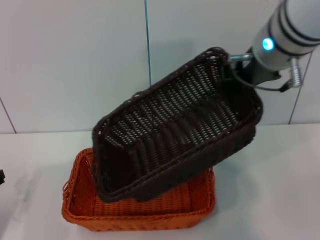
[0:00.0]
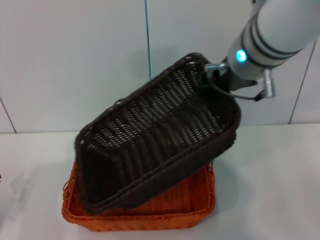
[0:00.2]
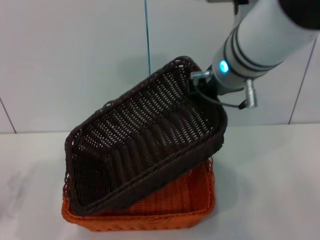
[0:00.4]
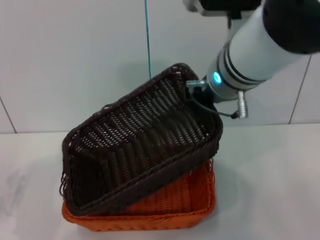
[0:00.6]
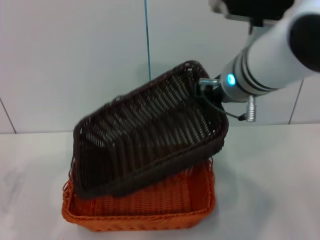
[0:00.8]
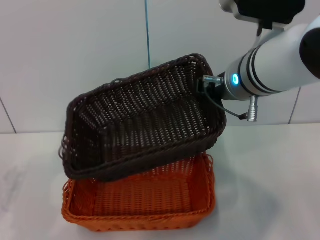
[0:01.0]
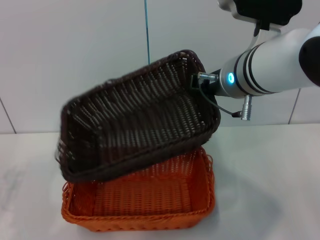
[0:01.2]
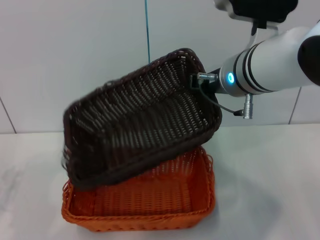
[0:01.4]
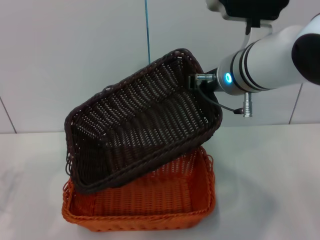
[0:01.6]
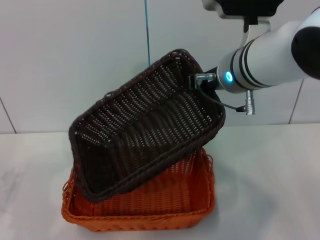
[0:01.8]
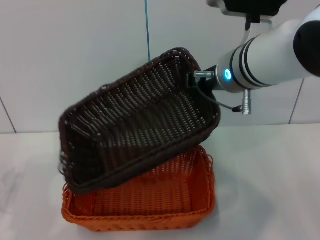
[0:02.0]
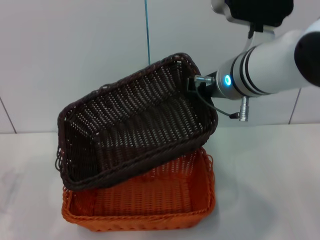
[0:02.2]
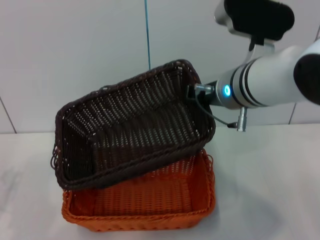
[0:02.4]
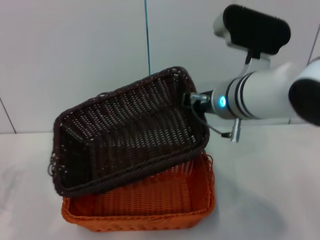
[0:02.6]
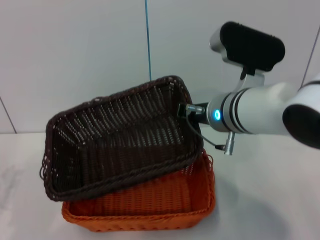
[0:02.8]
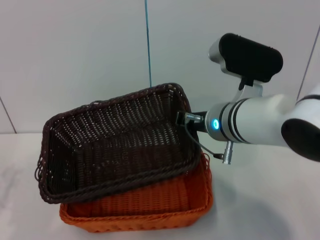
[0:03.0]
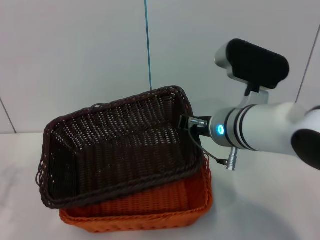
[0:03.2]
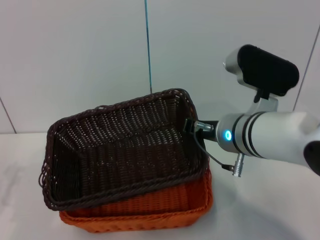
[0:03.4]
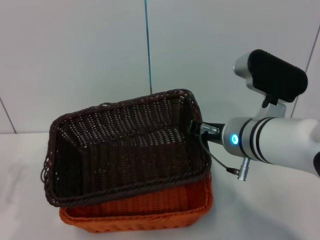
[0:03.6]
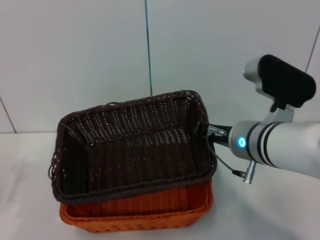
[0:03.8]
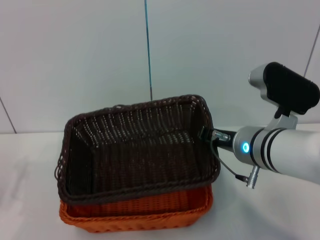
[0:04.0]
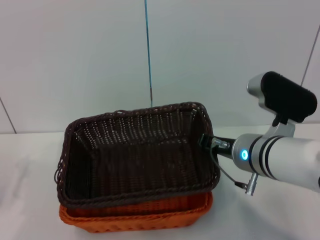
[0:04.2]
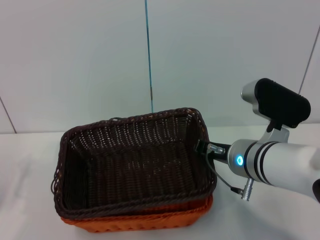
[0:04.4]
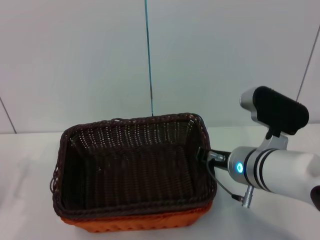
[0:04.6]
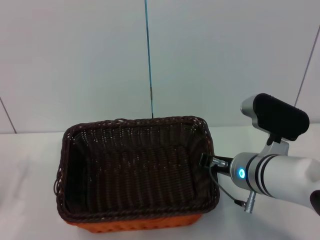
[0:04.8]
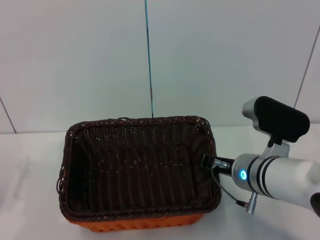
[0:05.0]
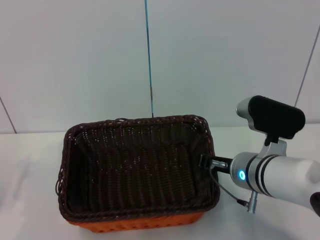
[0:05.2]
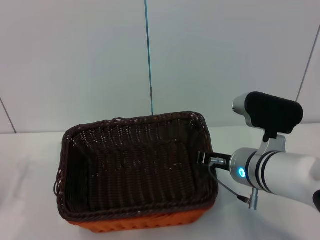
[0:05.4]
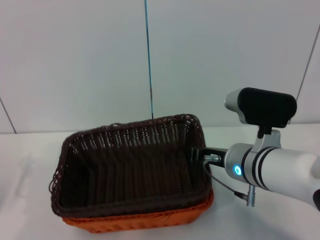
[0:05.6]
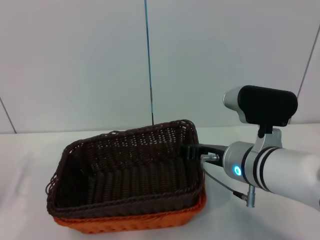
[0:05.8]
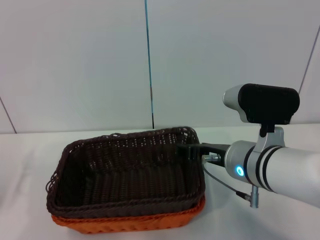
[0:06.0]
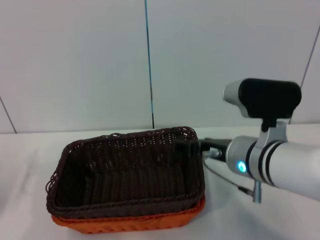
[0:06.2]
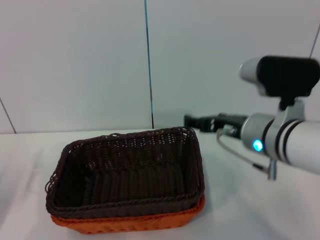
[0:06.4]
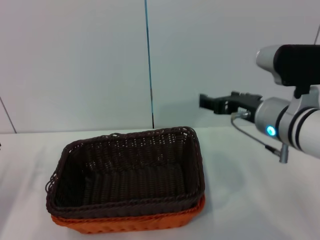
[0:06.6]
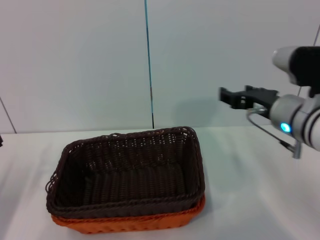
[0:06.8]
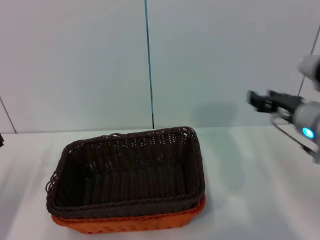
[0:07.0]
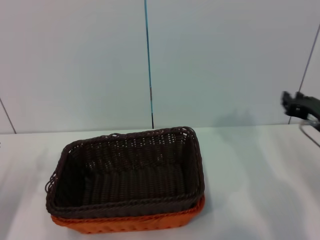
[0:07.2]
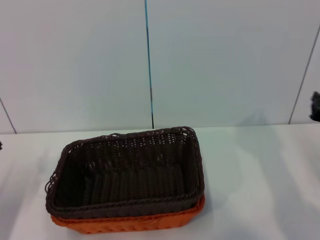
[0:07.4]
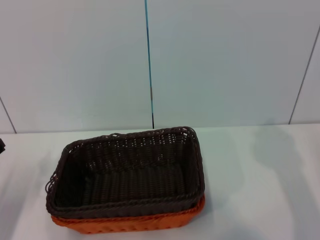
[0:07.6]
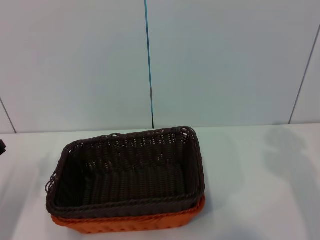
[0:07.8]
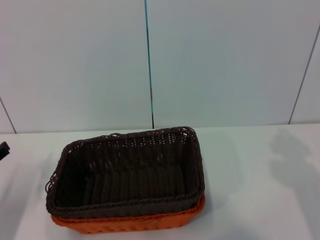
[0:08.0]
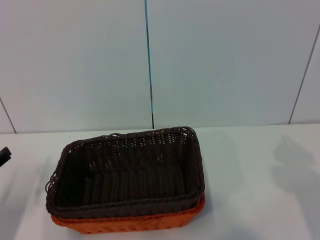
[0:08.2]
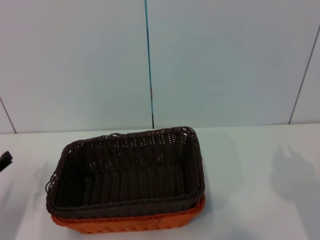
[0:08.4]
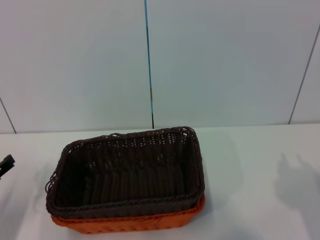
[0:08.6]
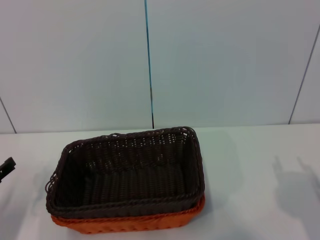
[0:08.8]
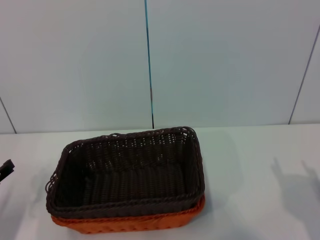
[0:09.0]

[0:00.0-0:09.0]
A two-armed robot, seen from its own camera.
Step, 0:00.0 to 0:05.8: Place the dark basket on the light basket with the right gripper.
0:00.0 to 0:01.6: The left gripper changes place by approximately 5 cm; the right gripper shifts approximately 5 cm downward.
0:01.6 to 0:03.0: The right gripper is displaced downward by roughly 5 cm.
0:03.0 to 0:04.4: The right gripper goes about 5 cm downward.
0:04.4 to 0:06.0: The right gripper opens up.
0:06.0 to 0:07.6: The right gripper goes some 20 cm to the right, and closes its fingers. The left gripper changes place by about 5 cm.
